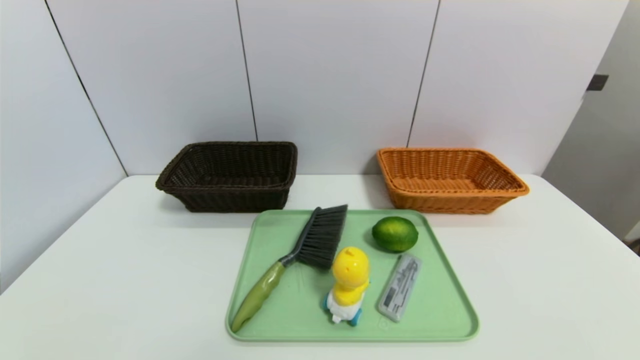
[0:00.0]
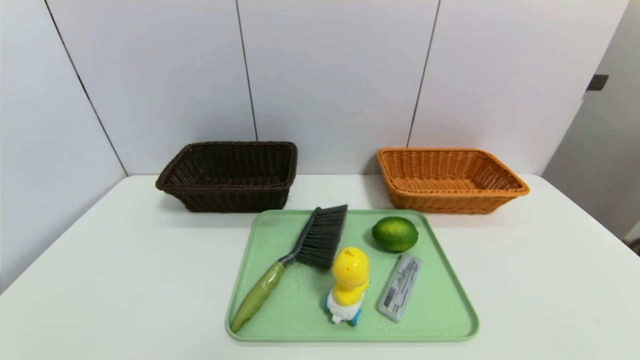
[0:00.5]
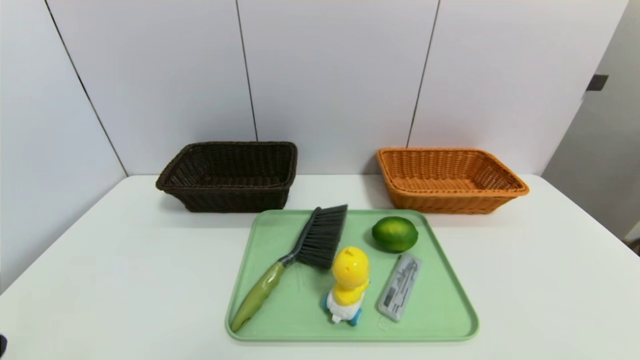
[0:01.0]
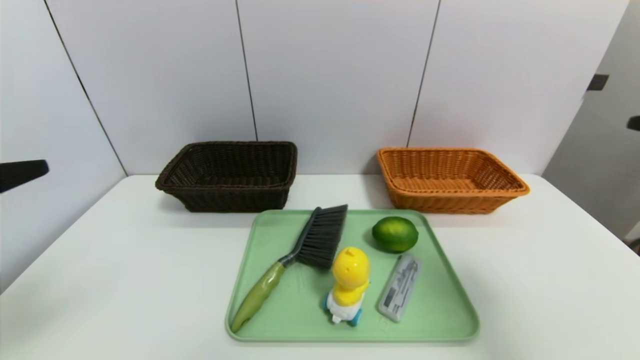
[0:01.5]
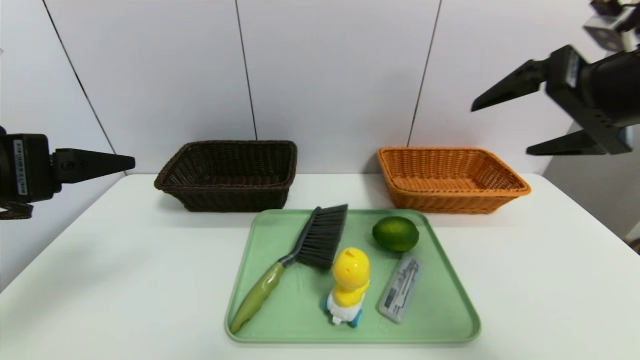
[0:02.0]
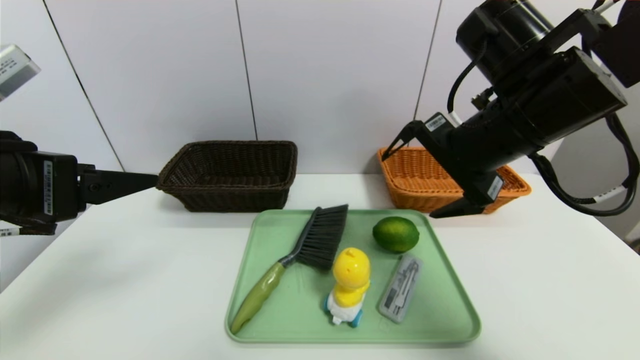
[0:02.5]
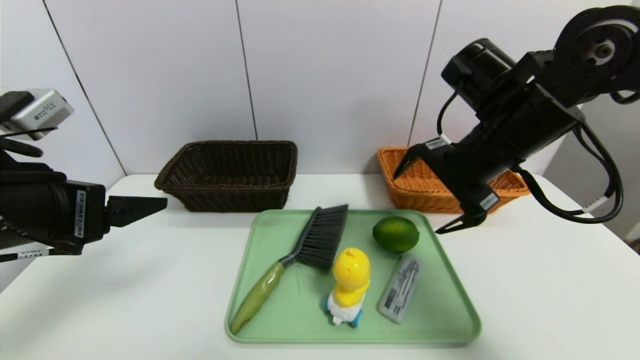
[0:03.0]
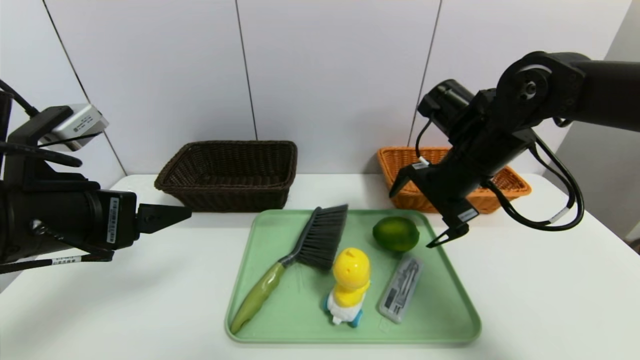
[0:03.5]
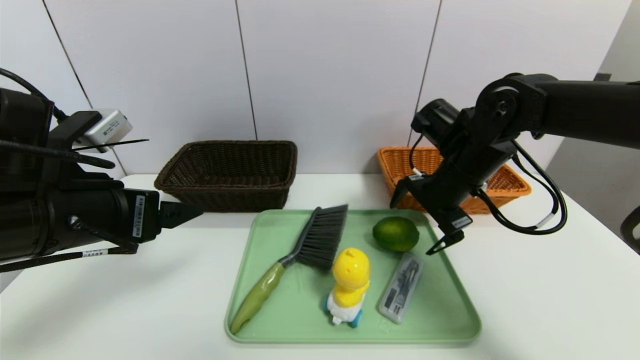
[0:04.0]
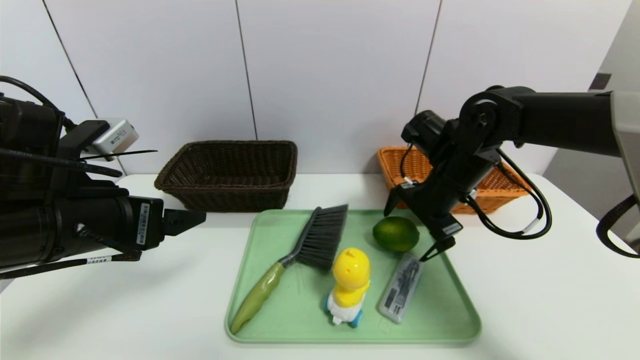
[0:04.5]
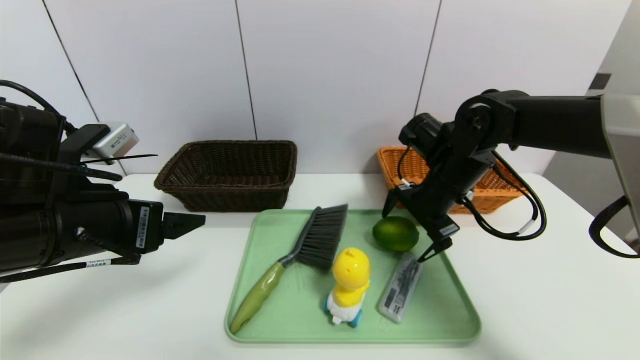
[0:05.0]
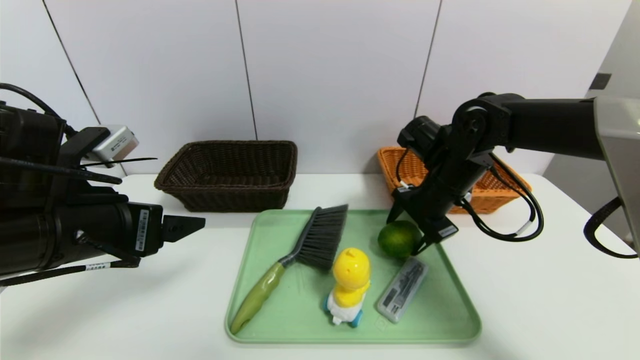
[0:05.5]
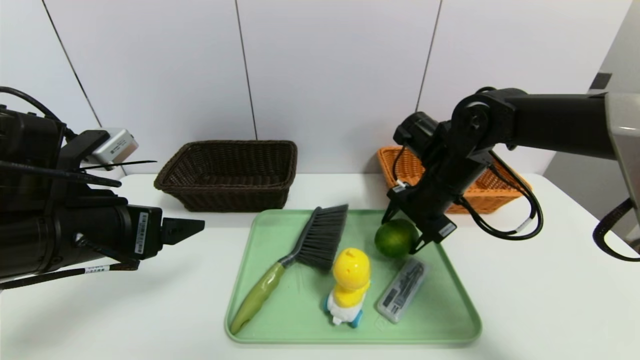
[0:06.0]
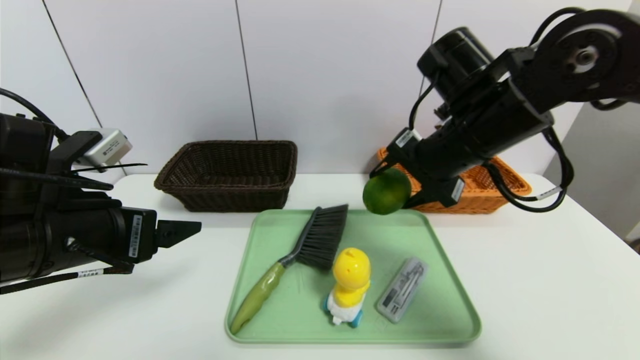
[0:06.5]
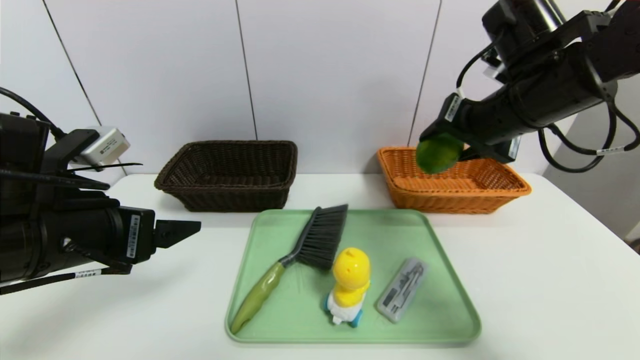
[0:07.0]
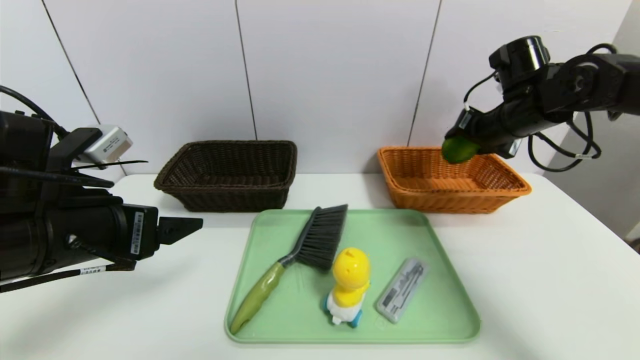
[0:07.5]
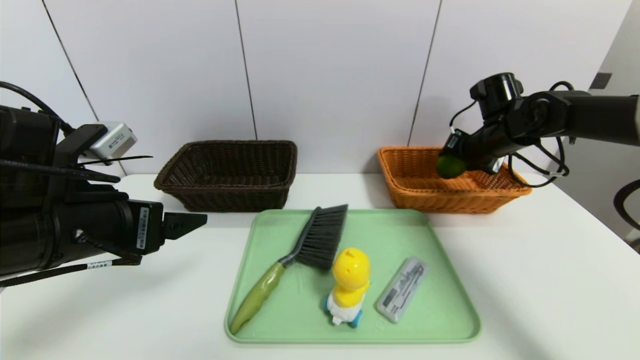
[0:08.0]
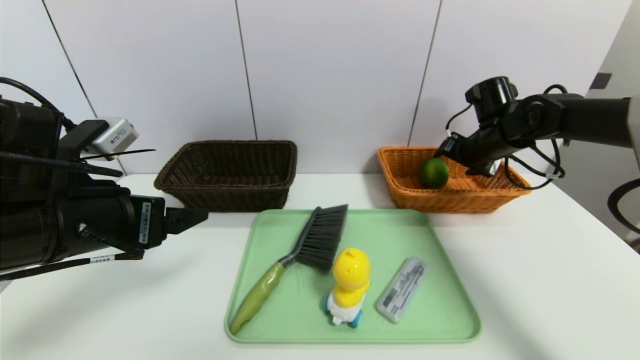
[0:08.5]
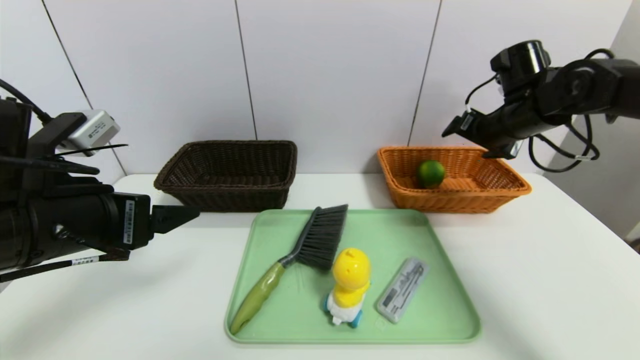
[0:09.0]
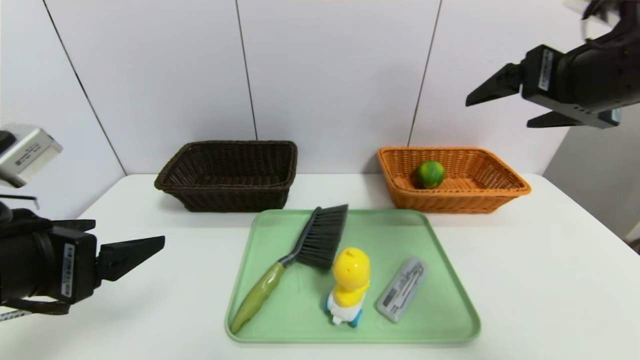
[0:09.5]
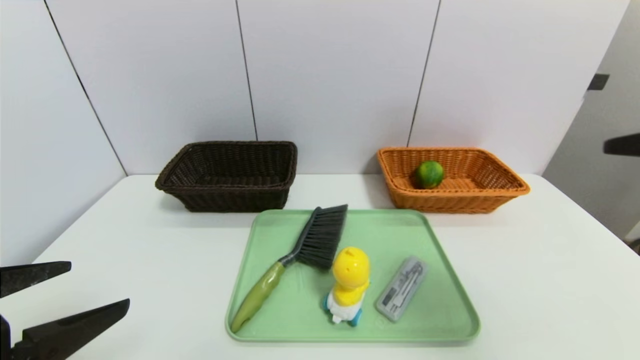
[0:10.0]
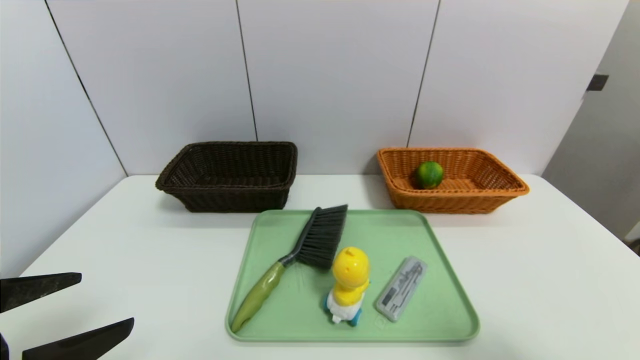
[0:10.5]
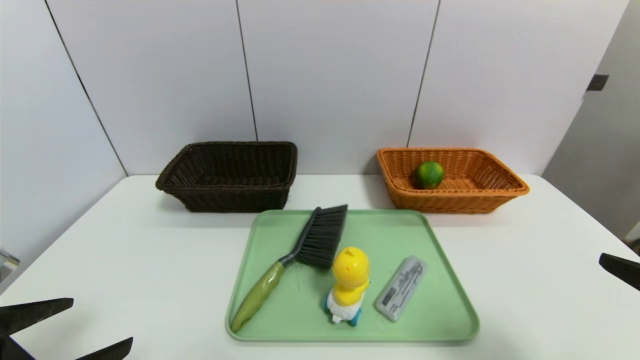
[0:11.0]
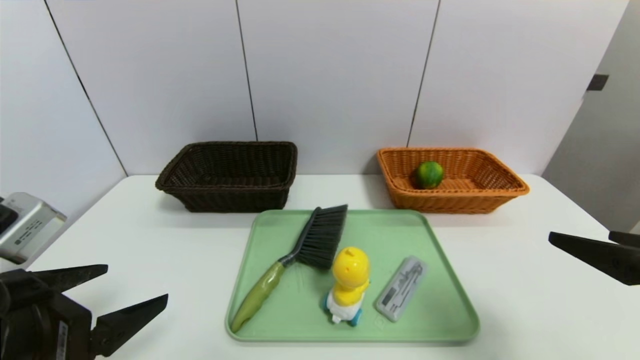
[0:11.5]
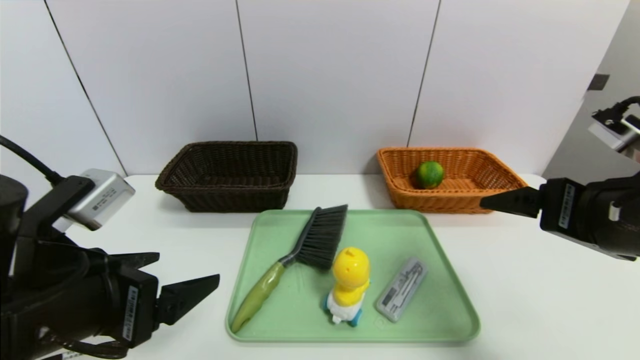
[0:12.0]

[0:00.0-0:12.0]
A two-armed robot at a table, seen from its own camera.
Task of the whole recording: place the food in the right basket with the right gripper, and place the non food items in the left basket with the left gripper.
Step, 0:00.0 to 0:09.0: Grasp the green lemon and put it in the right basket.
0:00.0 to 0:02.0: Both grippers move upward and forward, some 35 cm.
0:02.0 to 0:04.0: The right gripper moves downward, forward and to the left, roughly 20 cm; the left gripper goes roughly 5 cm downward.
0:04.0 to 0:06.0: The right gripper closes its fingers.
0:06.0 to 0:08.0: The right gripper travels to the right and forward by roughly 15 cm.
0:08.0 to 0:10.0: The right gripper is displaced backward and upward by roughly 35 cm, and opens its fingers, while the left gripper shifts approximately 10 cm backward.
0:10.0 to 0:12.0: The left gripper goes about 10 cm to the right and forward. The right gripper shifts roughly 10 cm downward and forward.

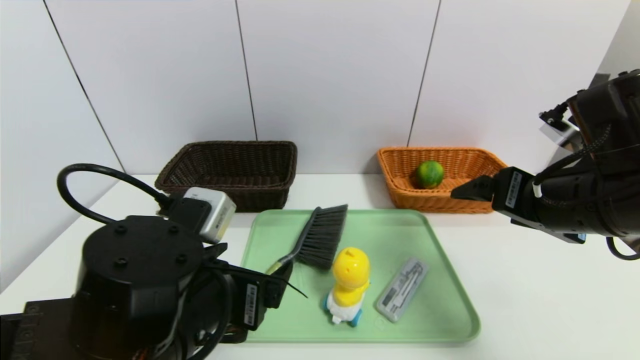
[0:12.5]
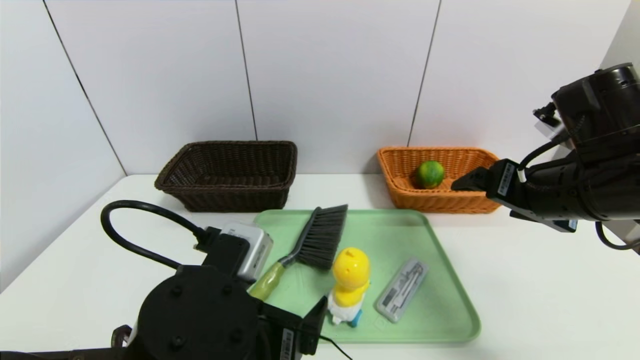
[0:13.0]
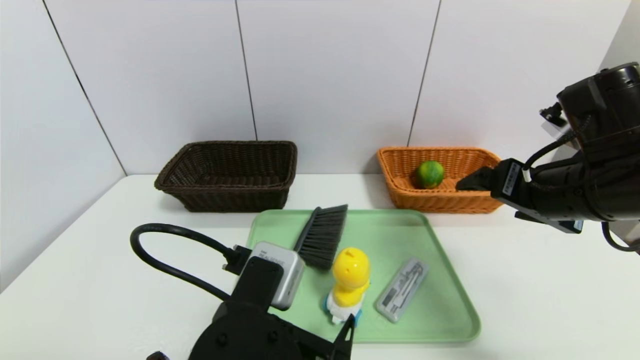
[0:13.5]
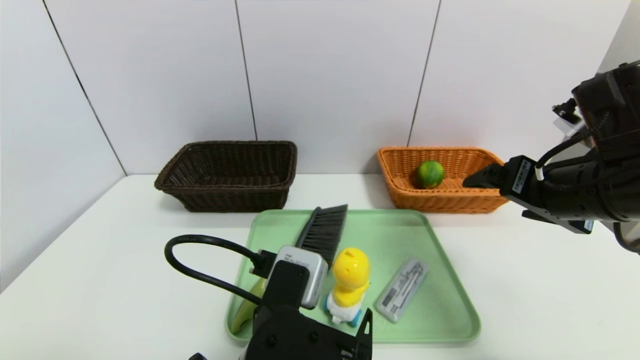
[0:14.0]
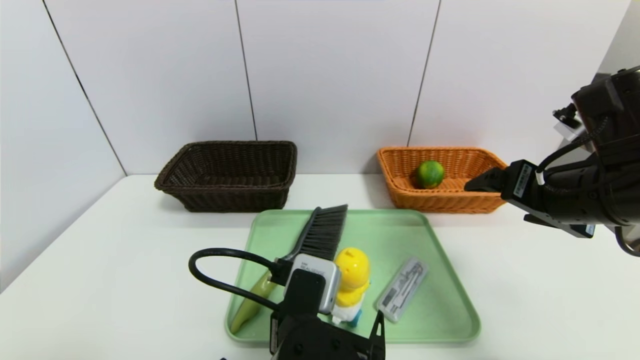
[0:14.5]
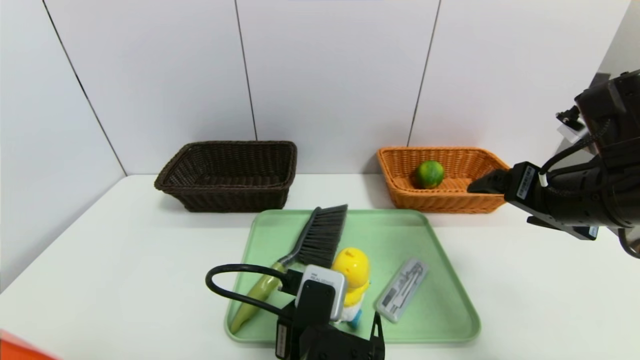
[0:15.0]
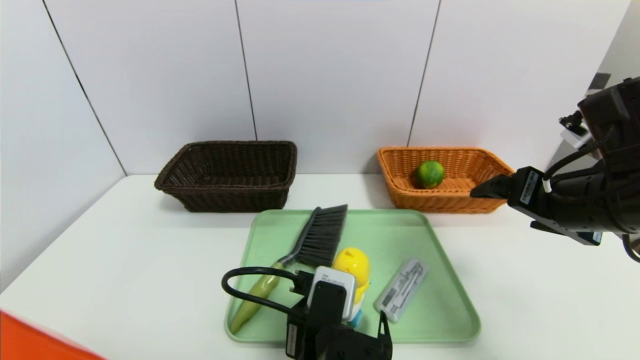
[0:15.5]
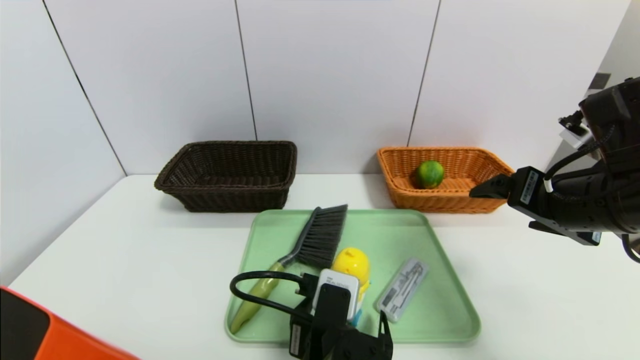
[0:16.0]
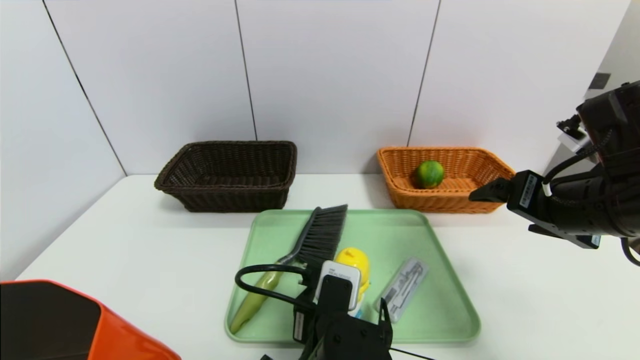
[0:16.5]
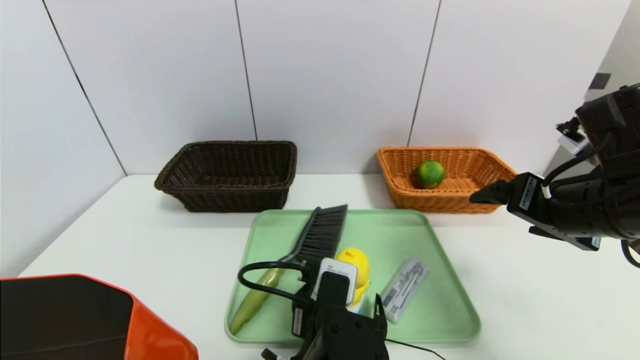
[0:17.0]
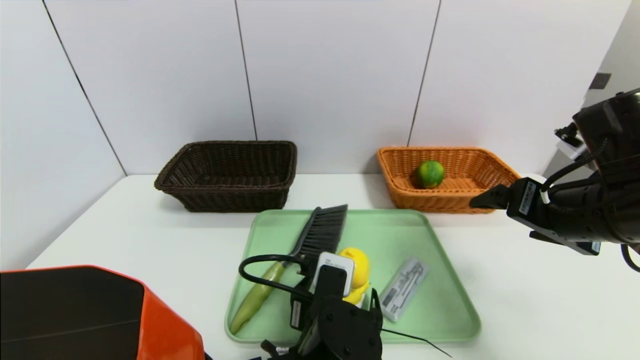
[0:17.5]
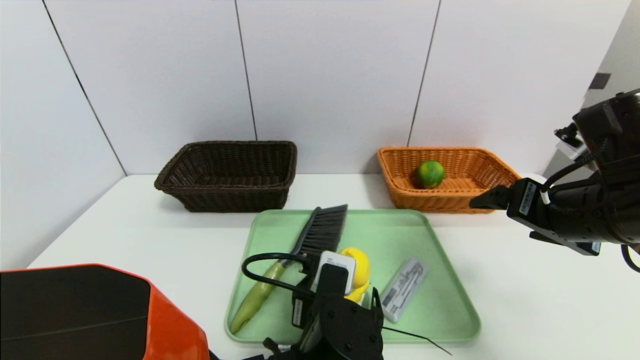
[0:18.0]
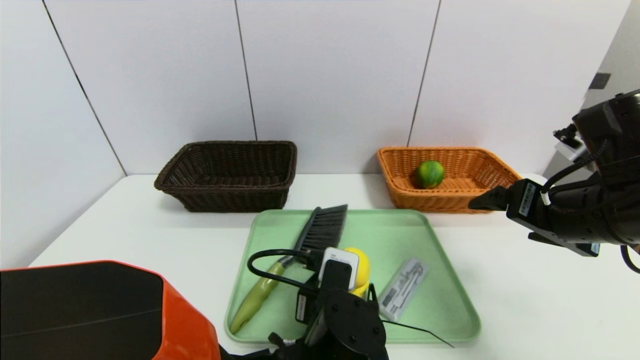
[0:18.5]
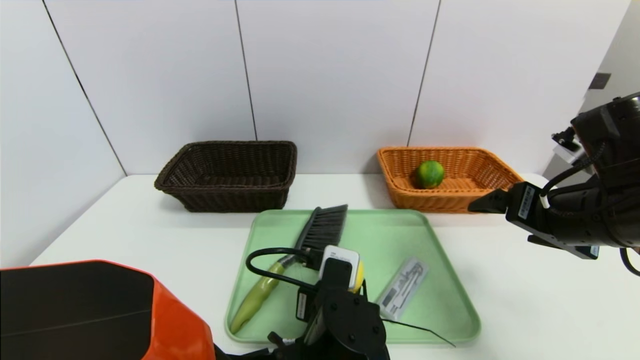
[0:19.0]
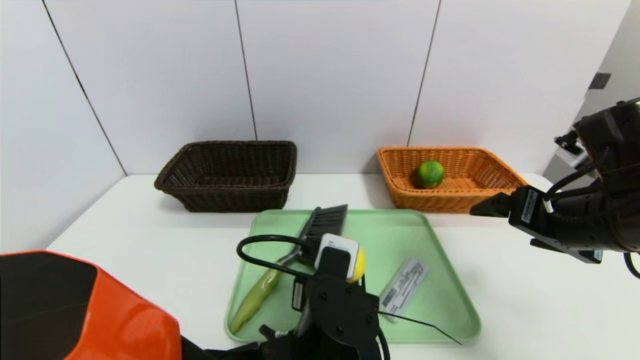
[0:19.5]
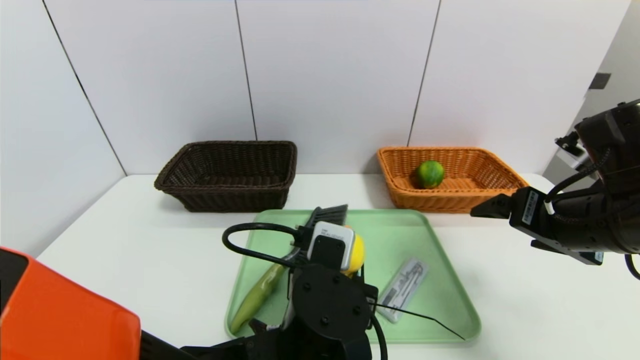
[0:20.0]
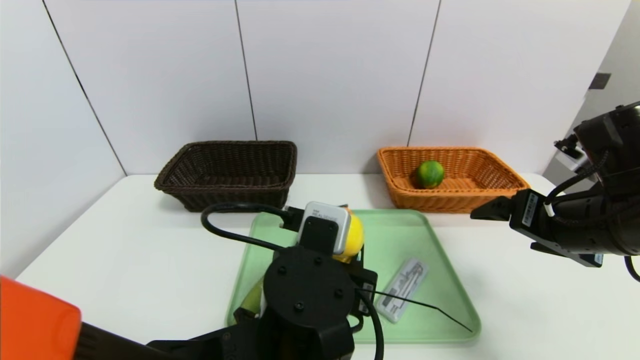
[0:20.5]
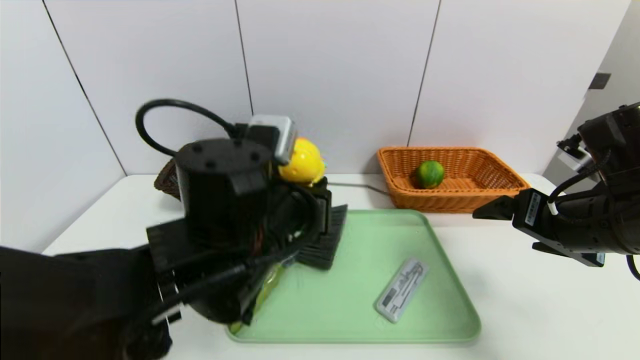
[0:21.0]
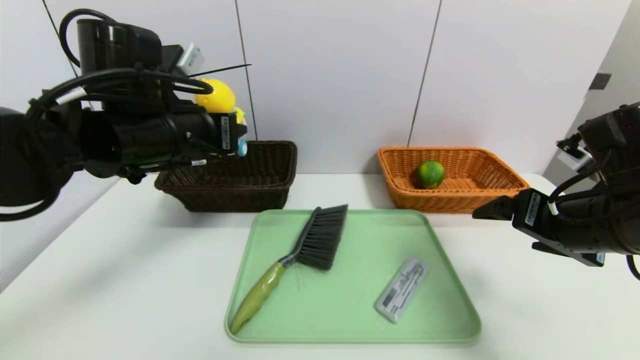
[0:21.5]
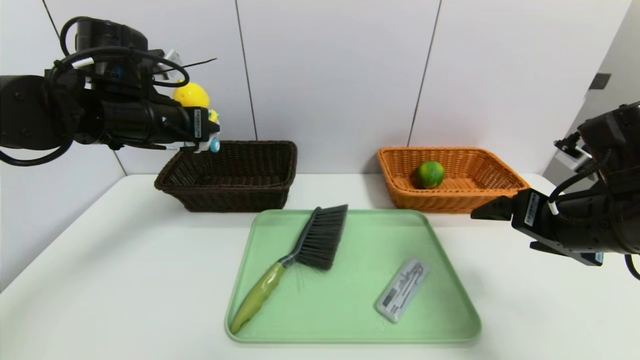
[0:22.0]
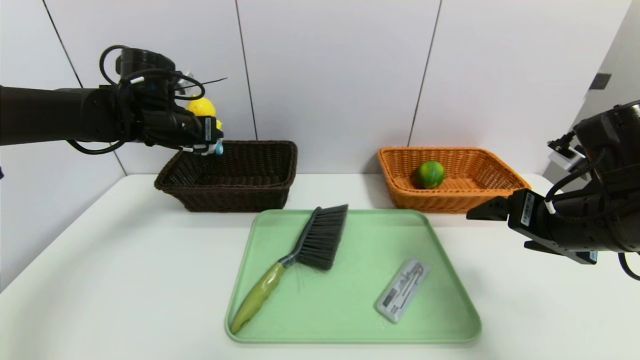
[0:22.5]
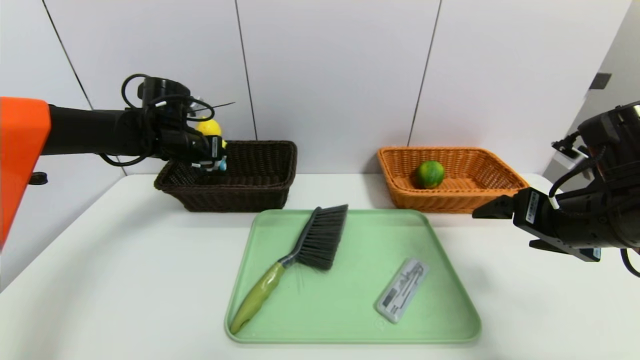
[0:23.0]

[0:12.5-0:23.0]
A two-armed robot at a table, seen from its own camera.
Task of the whole recording: place the food in the right basket with the right gripper, and place the non food items in the left basket with the left gripper.
0:12.5 to 0:14.5: The left gripper shifts about 10 cm to the right and downward.
0:14.5 to 0:16.5: The left gripper changes place by roughly 5 cm.
0:16.5 to 0:19.0: The left gripper closes up.
0:19.0 to 0:21.0: The left gripper travels upward and to the left by roughly 15 cm.
0:21.0 to 0:23.0: The left gripper goes some 30 cm forward and to the left.
